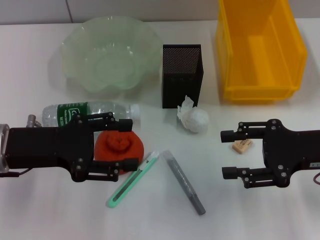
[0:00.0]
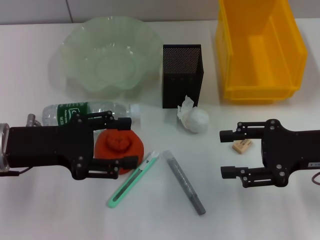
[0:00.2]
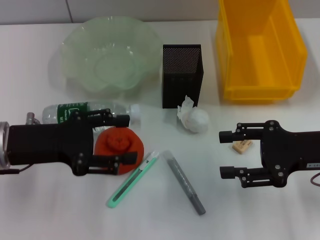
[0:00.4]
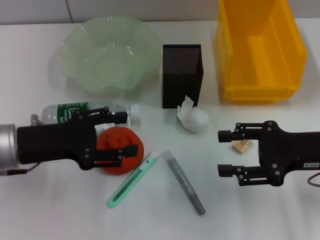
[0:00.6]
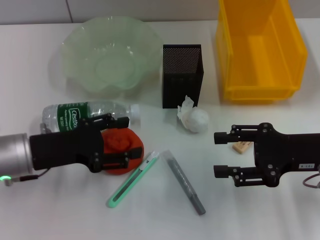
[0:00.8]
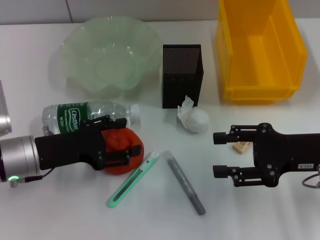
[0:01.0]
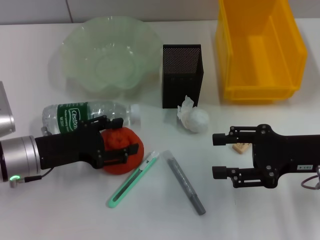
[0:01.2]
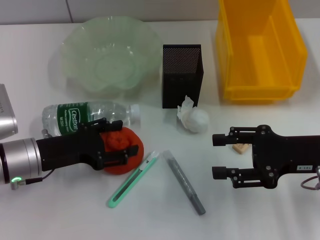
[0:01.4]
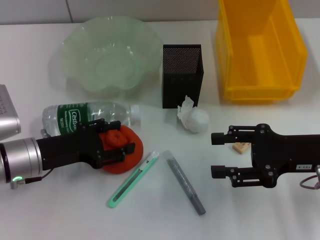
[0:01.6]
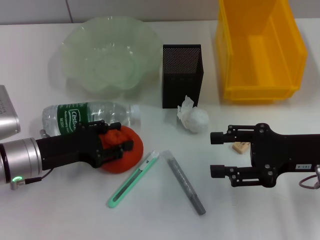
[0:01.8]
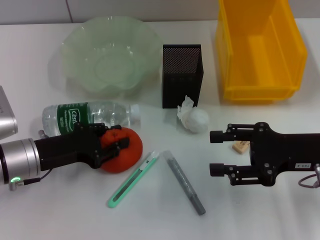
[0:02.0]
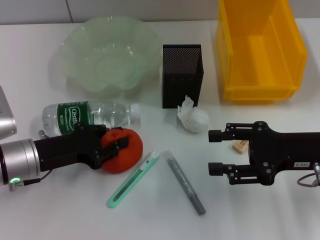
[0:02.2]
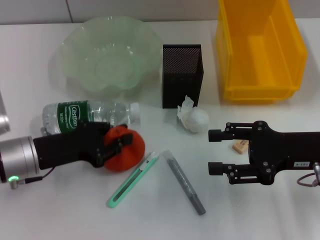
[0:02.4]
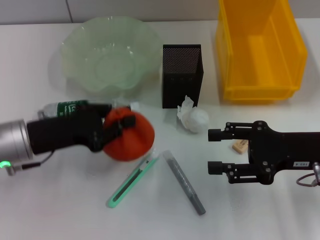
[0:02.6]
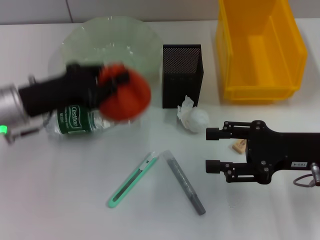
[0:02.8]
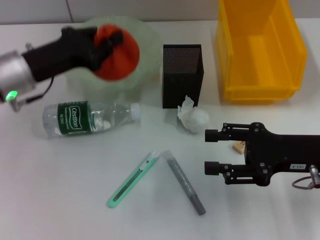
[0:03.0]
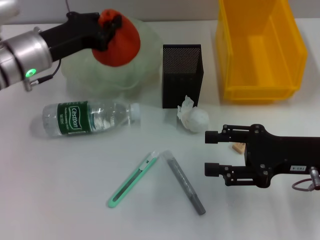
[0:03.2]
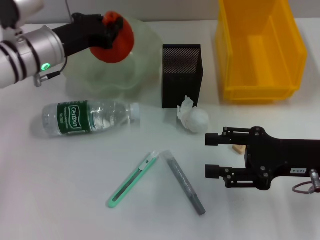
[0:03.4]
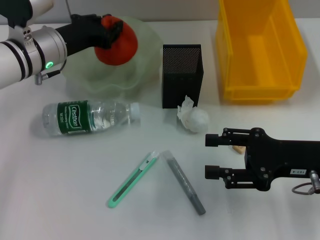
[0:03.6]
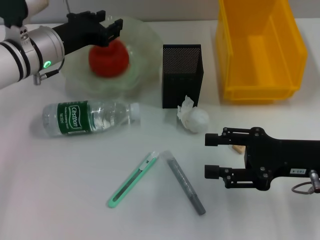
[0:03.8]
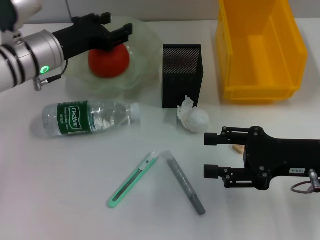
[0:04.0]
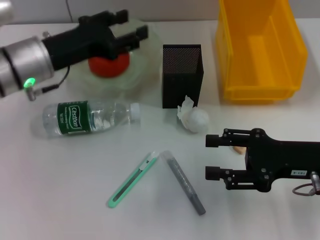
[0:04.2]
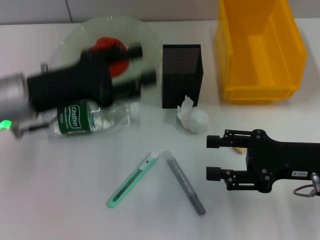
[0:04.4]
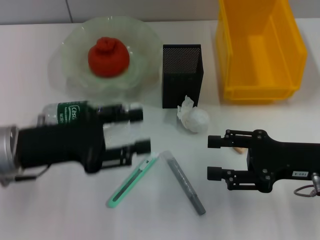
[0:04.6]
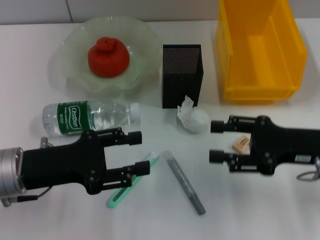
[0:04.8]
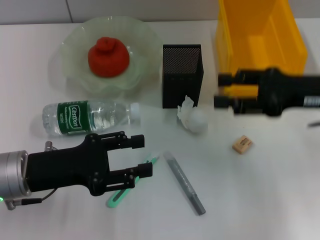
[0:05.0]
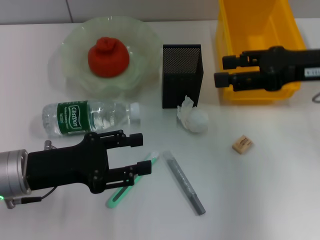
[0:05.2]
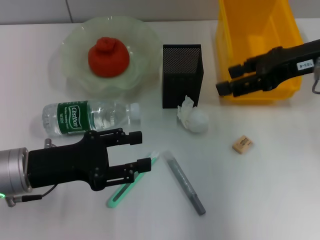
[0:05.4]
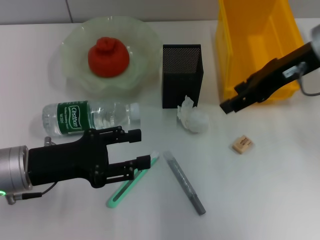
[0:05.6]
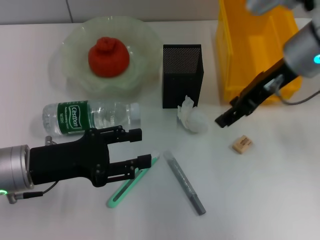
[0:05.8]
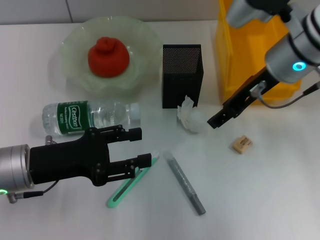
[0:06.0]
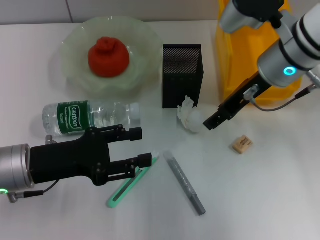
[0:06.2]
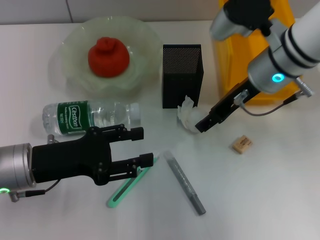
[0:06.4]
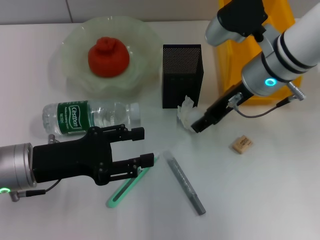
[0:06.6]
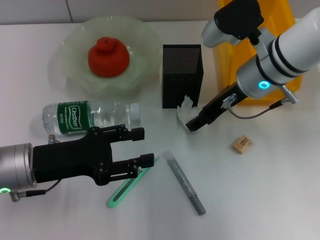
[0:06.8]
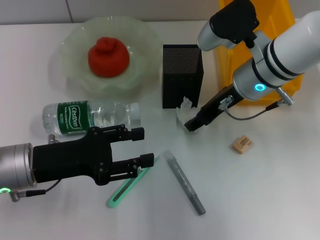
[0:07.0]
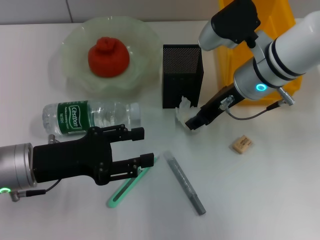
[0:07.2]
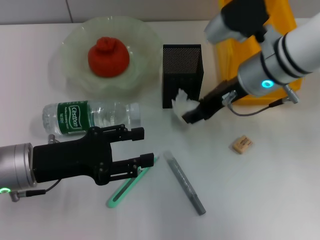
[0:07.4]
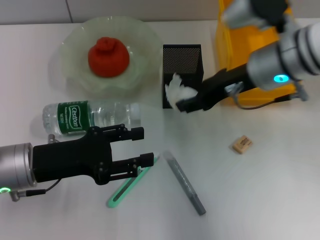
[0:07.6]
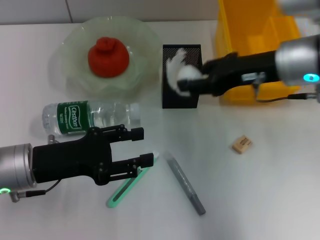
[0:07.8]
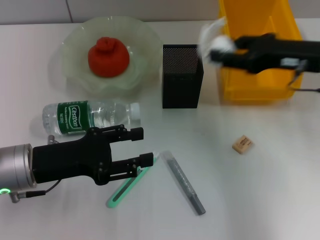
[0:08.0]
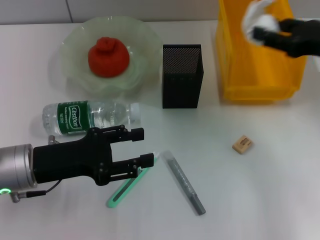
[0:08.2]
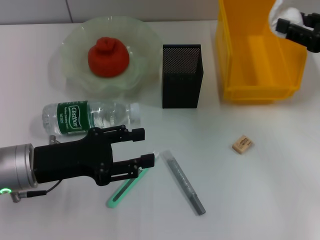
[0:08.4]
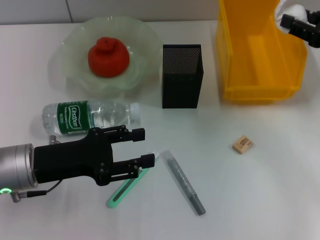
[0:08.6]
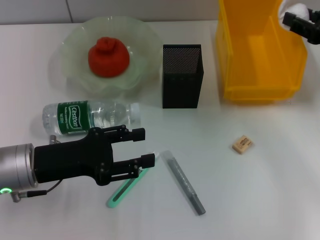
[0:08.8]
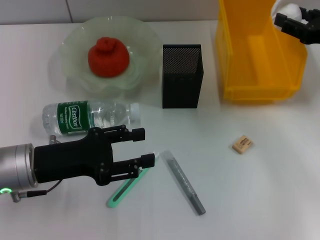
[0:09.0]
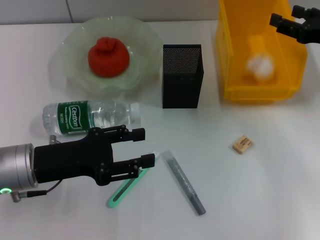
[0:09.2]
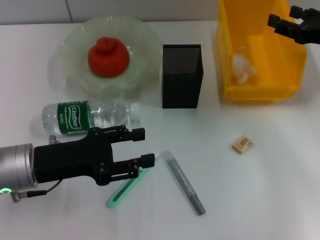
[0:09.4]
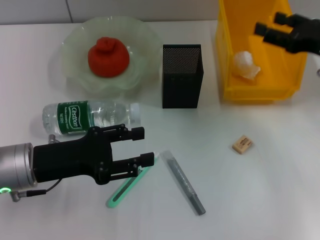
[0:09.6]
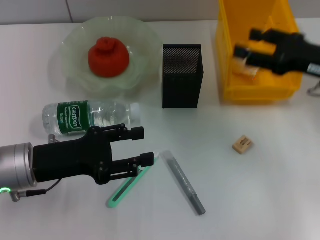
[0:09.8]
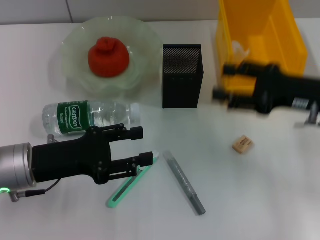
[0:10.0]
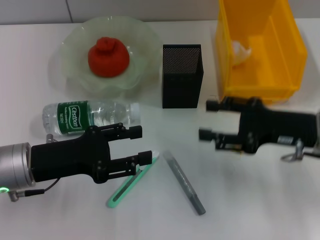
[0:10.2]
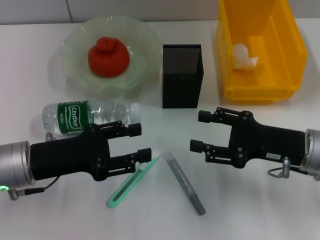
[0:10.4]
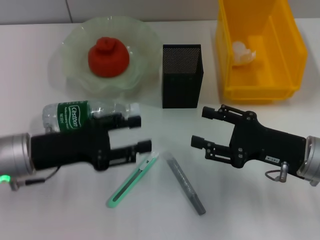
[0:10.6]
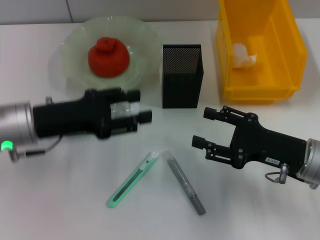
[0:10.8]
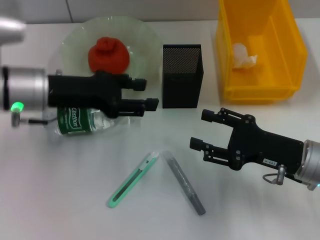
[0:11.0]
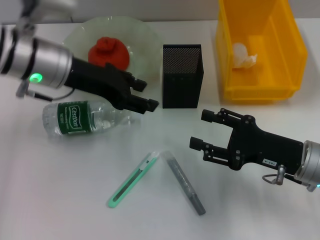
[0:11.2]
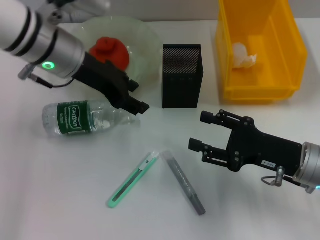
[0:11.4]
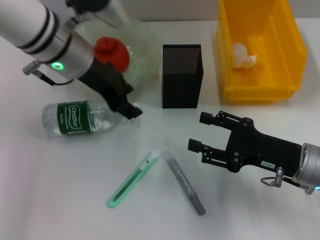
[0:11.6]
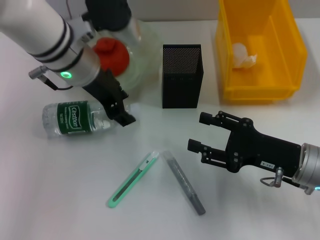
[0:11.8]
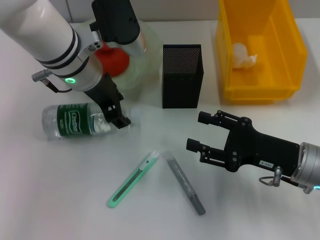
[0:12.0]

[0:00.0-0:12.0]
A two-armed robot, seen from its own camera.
Step, 0:00.0 to 0:02.2: Grab the orange with the left hand.
Step, 0:02.4 to 0:04.0: Place the orange into the fruit bowl with the left hand.
Step, 0:04.2 to 0:07.0: Grab the paper ball with the right hand.
Step, 0:07.2 to 0:09.8: Place the paper ball into the trash can with the right hand.
0:00.0 to 0:01.6: The left gripper travels downward by about 10 cm.
0:01.6 to 0:03.0: The left gripper travels upward and forward by some 10 cm, and closes.
0:03.0 to 0:04.4: The left gripper opens its fingers.
0:04.4 to 0:06.0: The left gripper goes some 10 cm downward and backward; the right gripper moves forward, upward and to the left, about 20 cm.
0:07.6 to 0:09.0: The right gripper travels to the right by about 15 cm.
0:09.0 to 0:10.4: The right gripper goes roughly 15 cm backward, to the left and downward.
0:10.4 to 0:12.0: The left gripper is displaced forward, to the right and upward by approximately 20 cm.

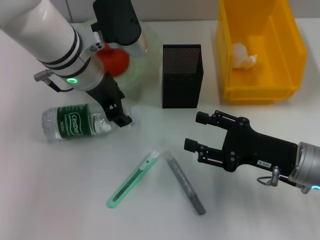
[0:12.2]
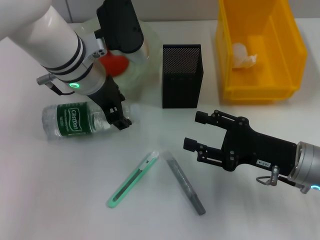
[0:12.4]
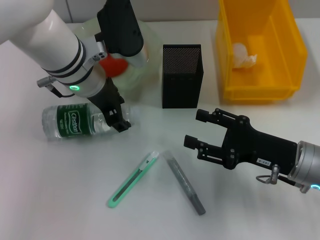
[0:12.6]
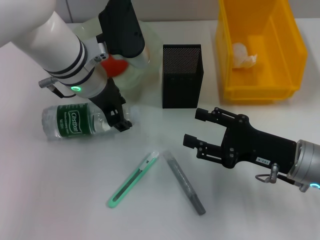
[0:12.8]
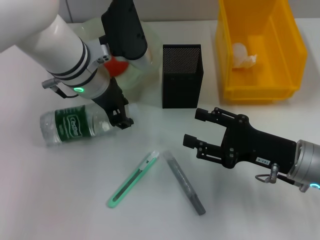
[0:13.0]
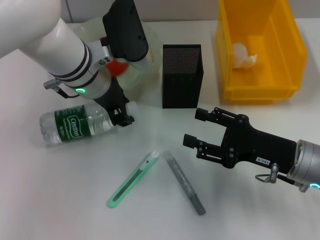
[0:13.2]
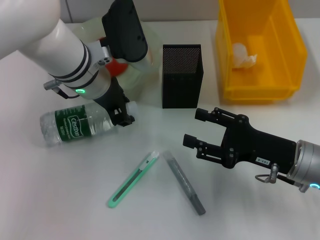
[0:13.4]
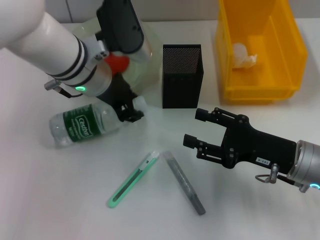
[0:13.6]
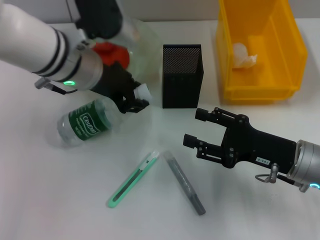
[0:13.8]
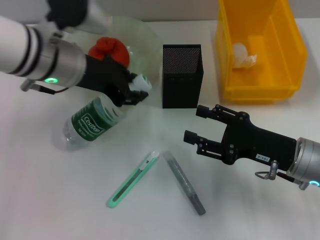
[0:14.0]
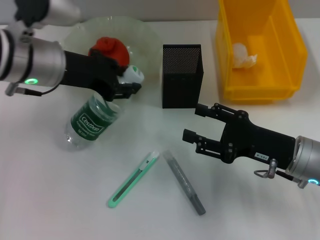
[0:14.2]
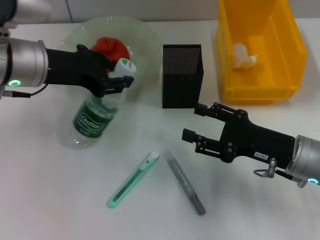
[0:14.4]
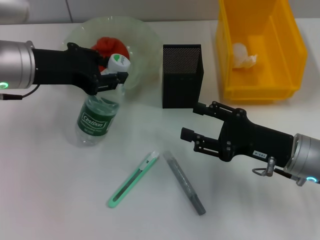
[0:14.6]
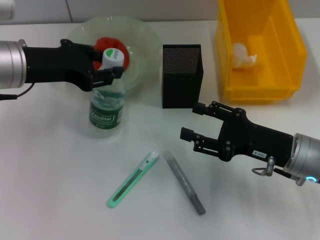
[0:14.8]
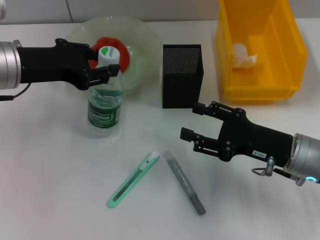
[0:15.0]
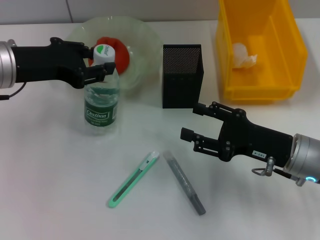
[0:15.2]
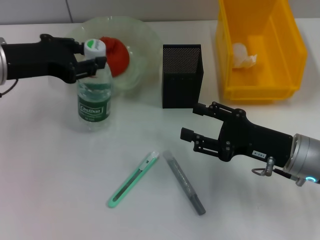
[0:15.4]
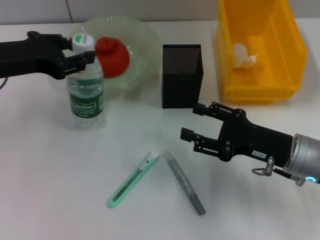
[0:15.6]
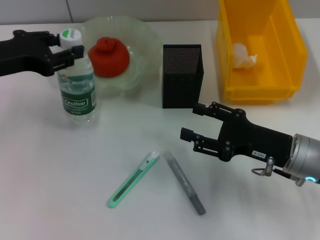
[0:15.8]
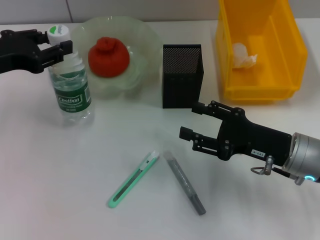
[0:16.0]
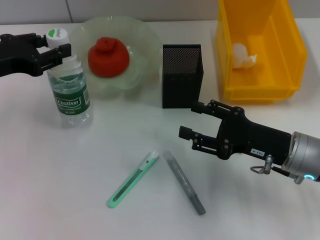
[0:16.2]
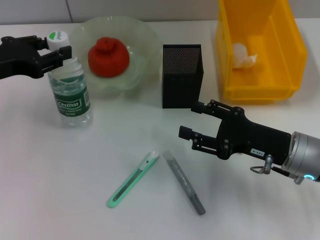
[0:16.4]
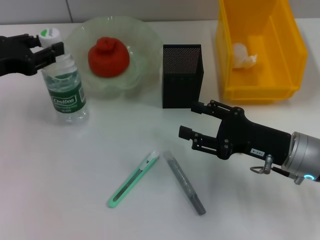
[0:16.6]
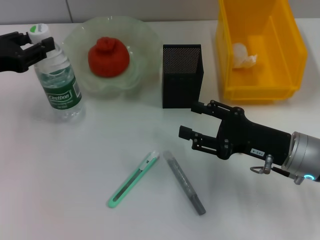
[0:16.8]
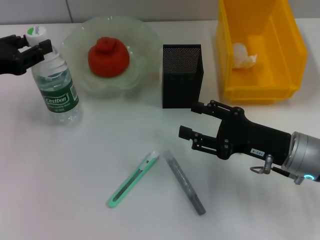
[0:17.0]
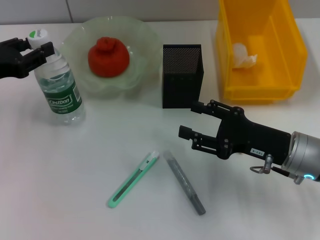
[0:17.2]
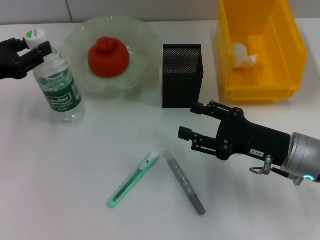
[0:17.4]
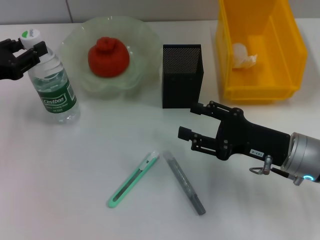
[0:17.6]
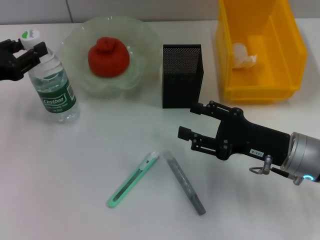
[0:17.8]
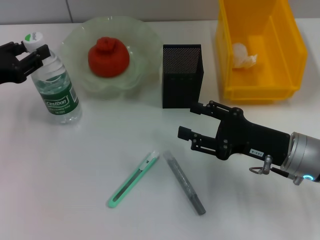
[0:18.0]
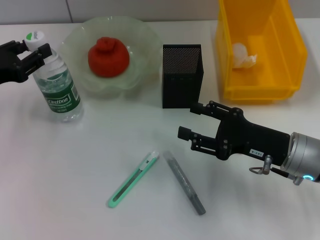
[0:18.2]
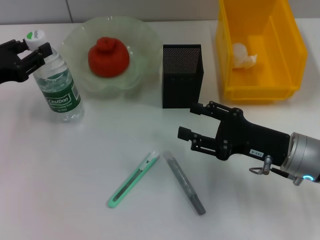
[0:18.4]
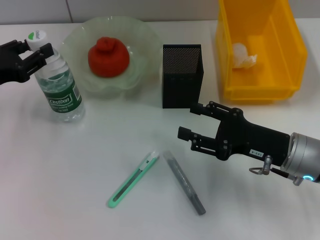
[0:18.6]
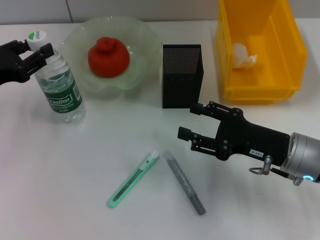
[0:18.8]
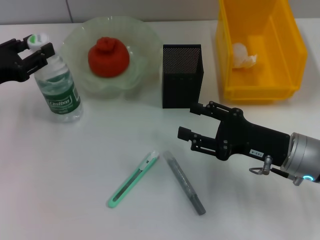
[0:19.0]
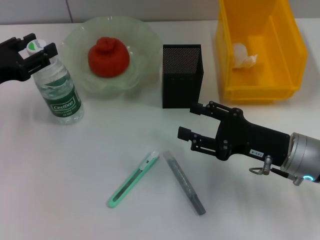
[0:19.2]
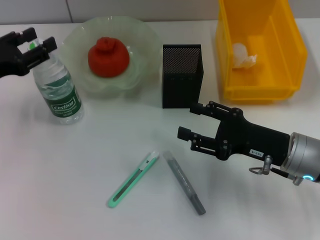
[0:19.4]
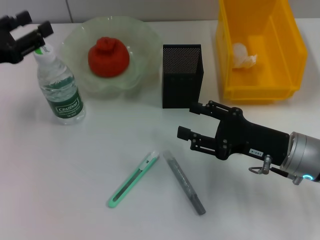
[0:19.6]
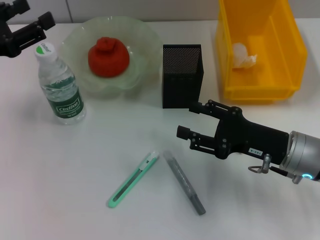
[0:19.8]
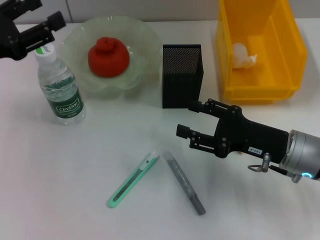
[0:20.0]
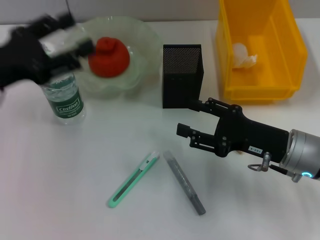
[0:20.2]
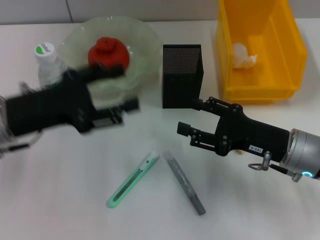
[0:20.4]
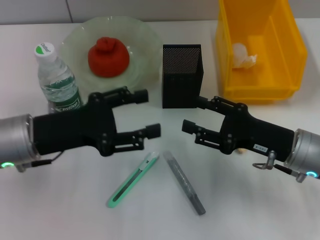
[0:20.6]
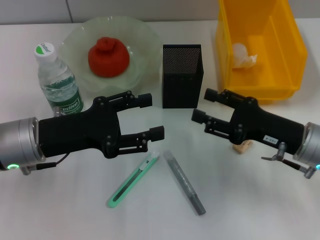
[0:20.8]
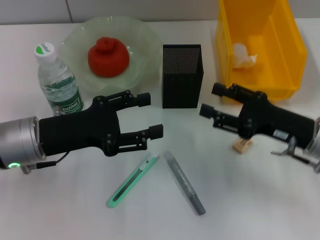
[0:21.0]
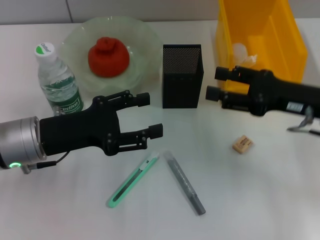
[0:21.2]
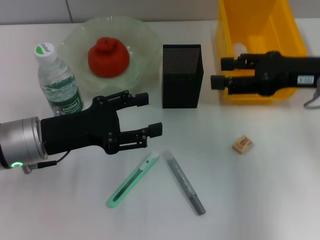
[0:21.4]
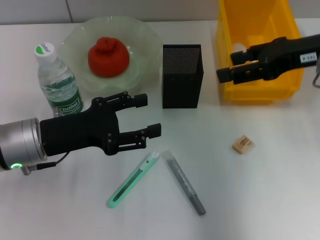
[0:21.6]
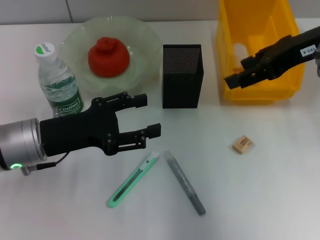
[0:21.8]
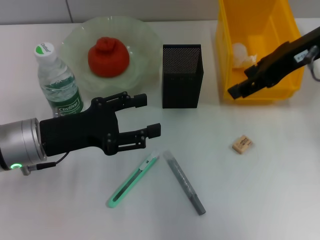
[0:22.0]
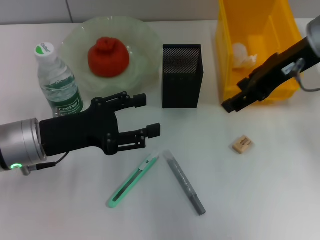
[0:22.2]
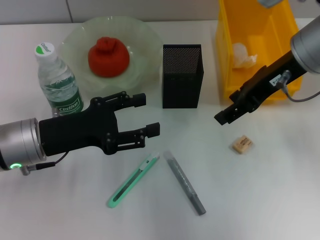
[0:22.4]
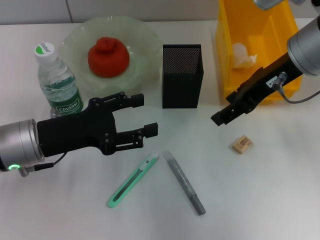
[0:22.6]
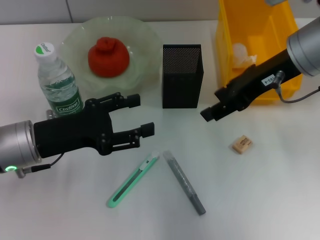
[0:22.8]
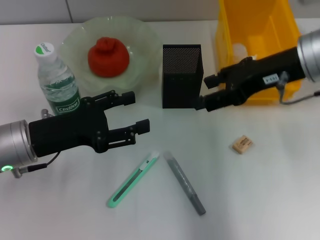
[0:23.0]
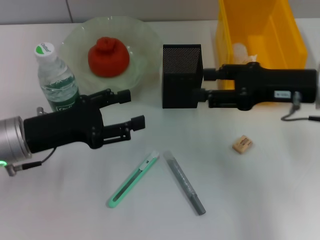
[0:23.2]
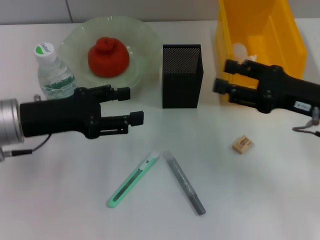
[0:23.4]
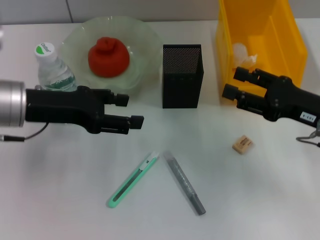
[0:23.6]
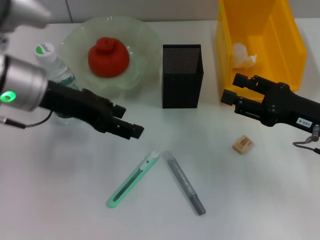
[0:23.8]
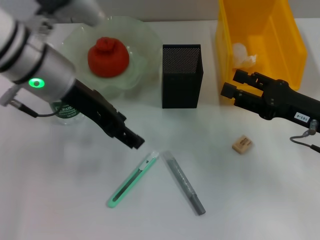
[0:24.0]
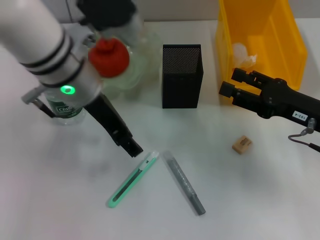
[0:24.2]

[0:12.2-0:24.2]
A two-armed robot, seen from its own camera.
Step, 0:13.6 to 0:19.4: Place the water bottle on the table with the left hand.
0:12.2 to 0:13.8: The left gripper closes its fingers.
0:13.8 to 0:15.2: The left gripper is displaced to the left by roughly 10 cm.
0:15.2 to 0:16.6: The left gripper heads to the left, covering some 5 cm.
0:16.6 to 0:18.2: The grippers make only small movements.
0:18.2 to 0:19.8: The left gripper opens.
0:19.8 to 0:21.2: The left gripper shifts approximately 10 cm to the right and downward. Meanwhile the right gripper heads upward, covering roughly 5 cm.
0:21.2 to 0:22.6: The right gripper heads upward, to the left and forward, covering about 15 cm.
0:22.6 to 0:24.2: The left gripper heads to the right, upward and forward, covering roughly 15 cm; the right gripper travels downward, to the right and backward by some 20 cm.
